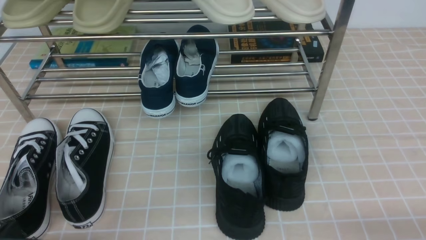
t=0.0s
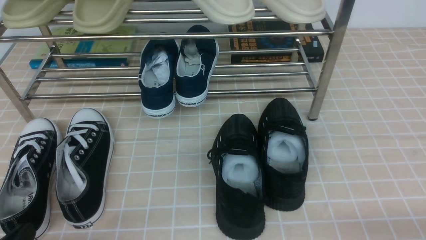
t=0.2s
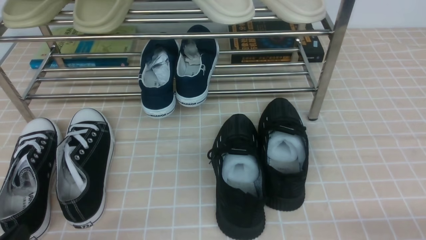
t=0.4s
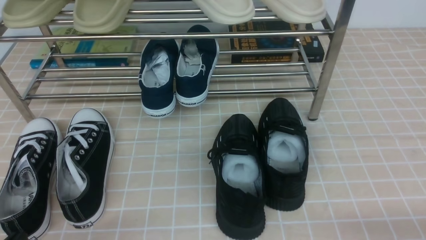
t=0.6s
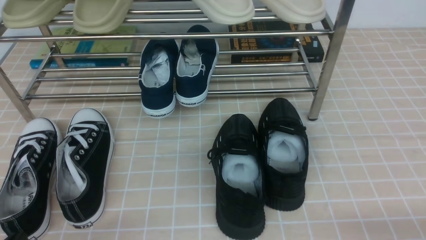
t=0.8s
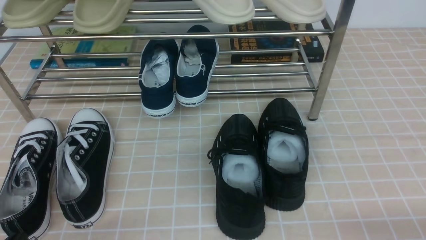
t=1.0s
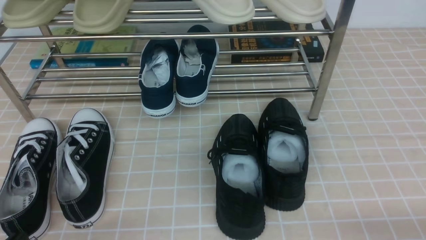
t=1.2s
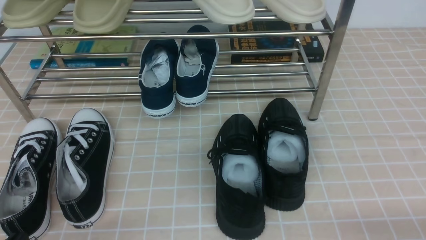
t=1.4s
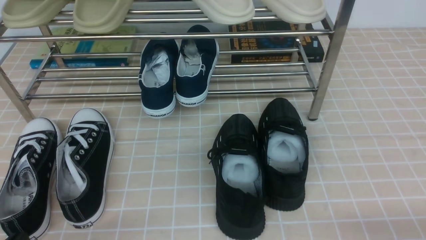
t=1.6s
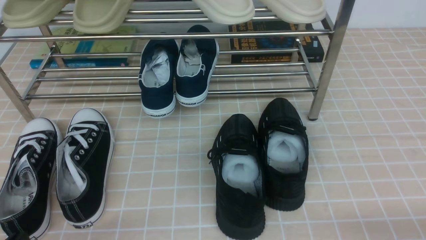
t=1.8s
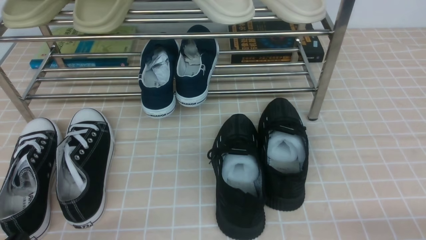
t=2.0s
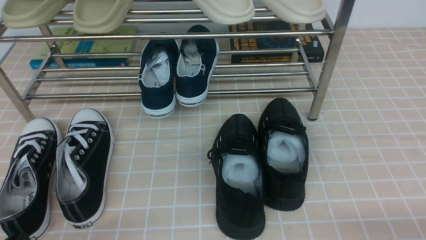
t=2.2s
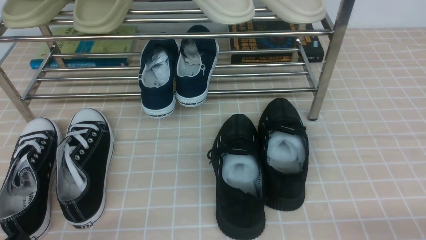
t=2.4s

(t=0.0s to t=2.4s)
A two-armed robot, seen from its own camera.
t=1.2s - t=2.4s: Both grippers stay put.
